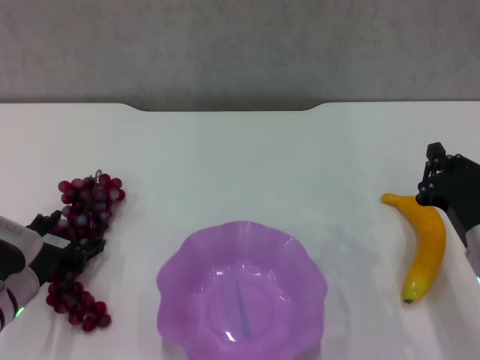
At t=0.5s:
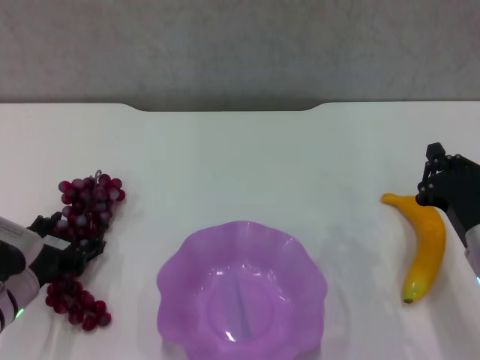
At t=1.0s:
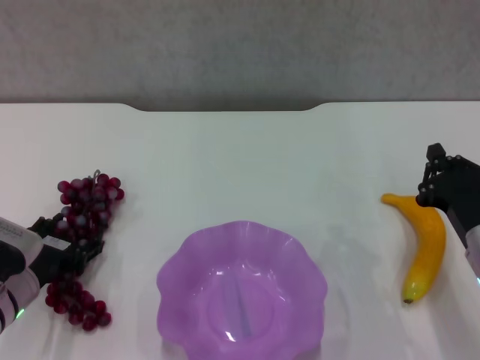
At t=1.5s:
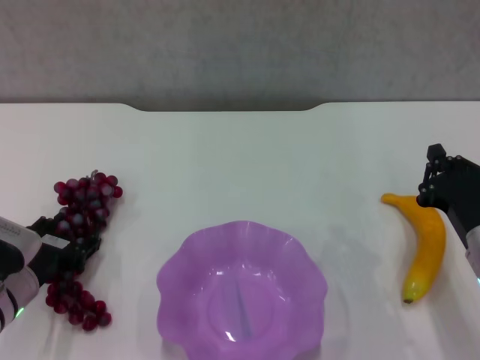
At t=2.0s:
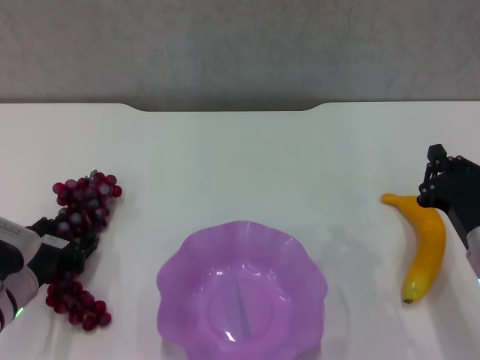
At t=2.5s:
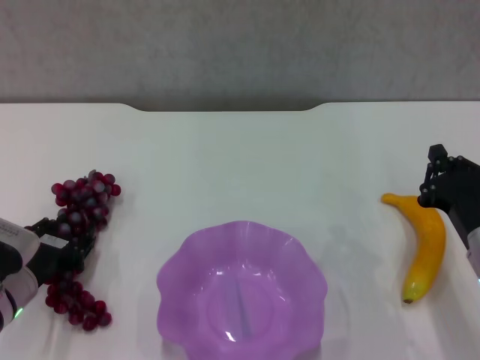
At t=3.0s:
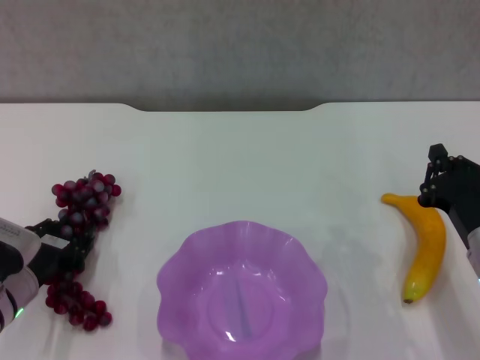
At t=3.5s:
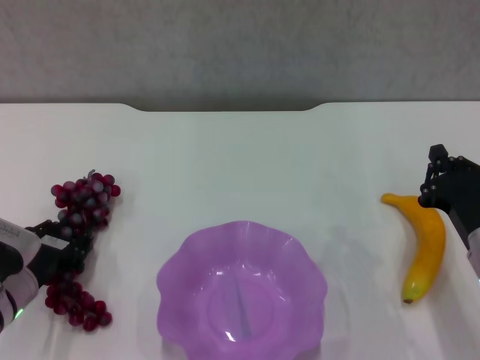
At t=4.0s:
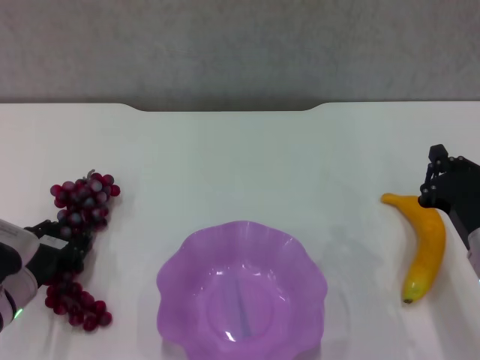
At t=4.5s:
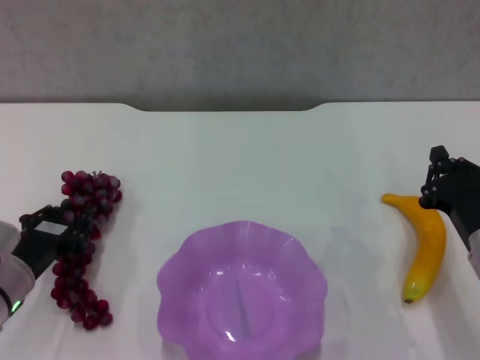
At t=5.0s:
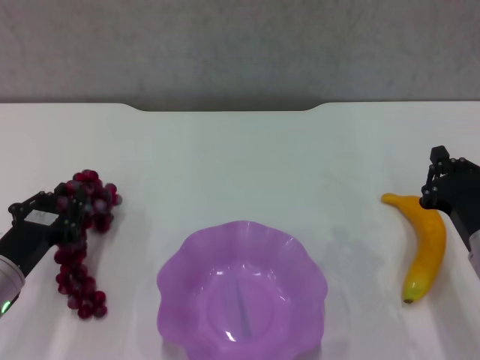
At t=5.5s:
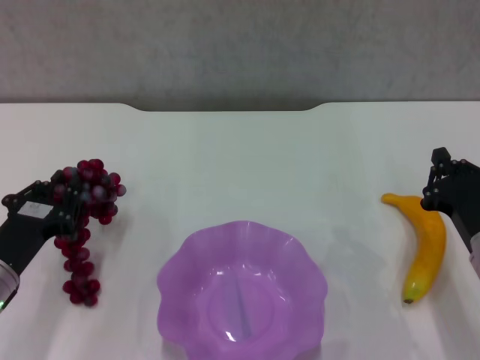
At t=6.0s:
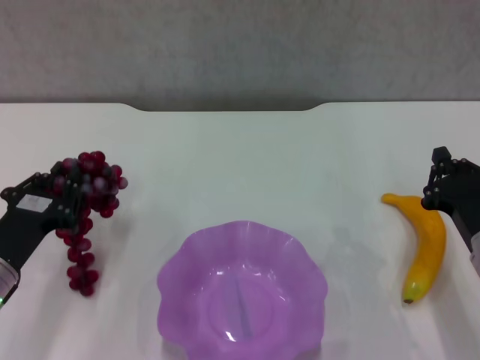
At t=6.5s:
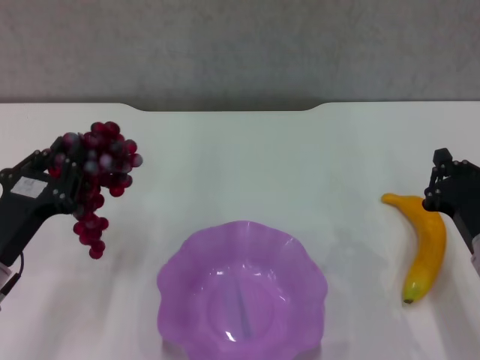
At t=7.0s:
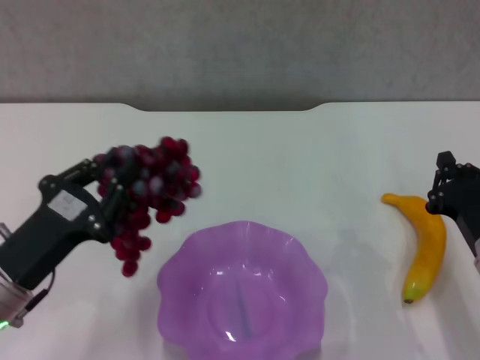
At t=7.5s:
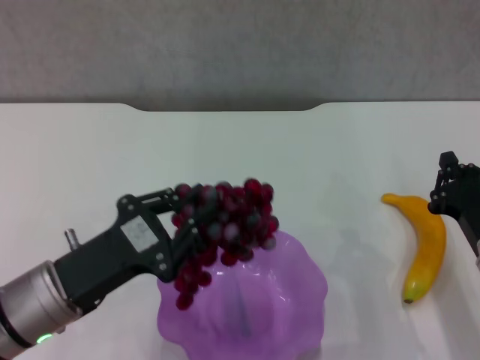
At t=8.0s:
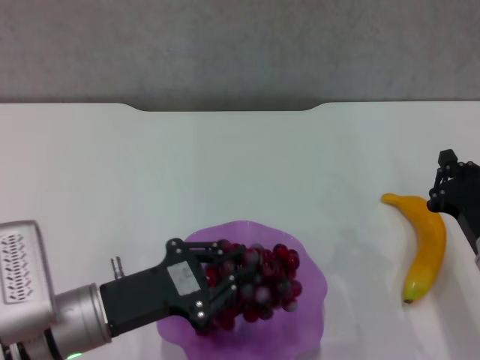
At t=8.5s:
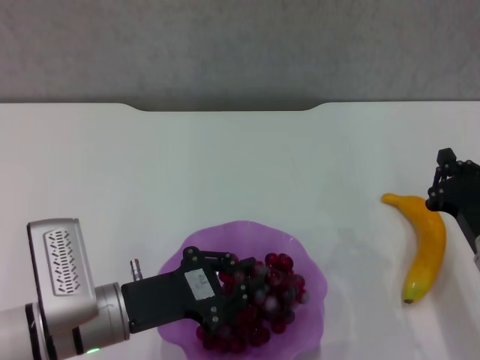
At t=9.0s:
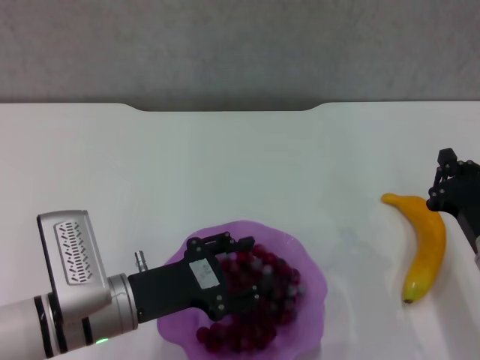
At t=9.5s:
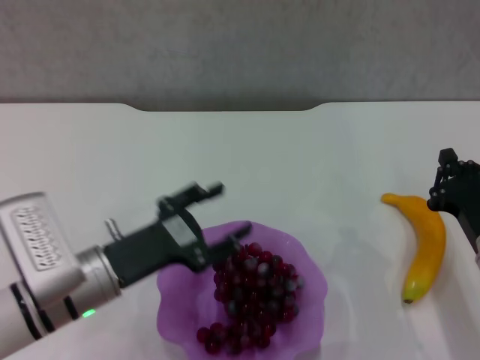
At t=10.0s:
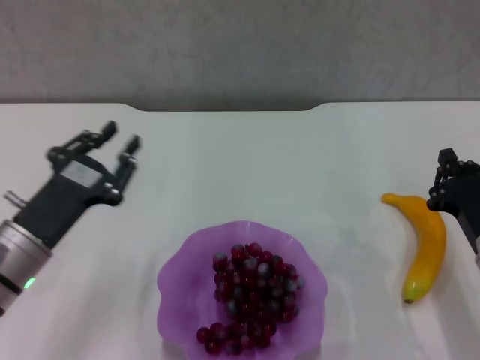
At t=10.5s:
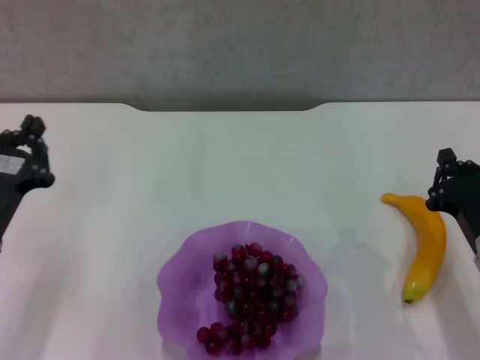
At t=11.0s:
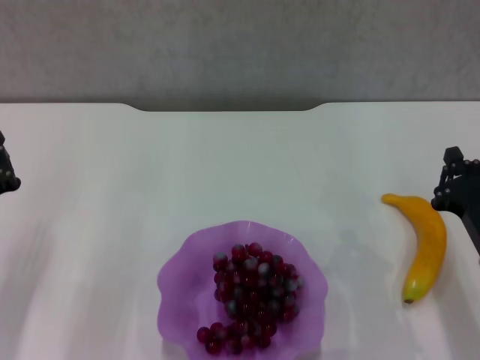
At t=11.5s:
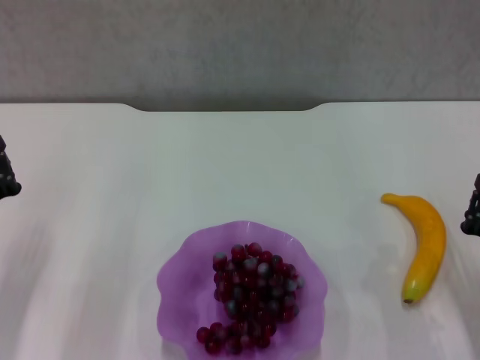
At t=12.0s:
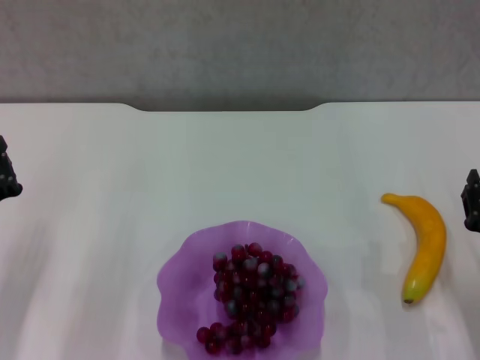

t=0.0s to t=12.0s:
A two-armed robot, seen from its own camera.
Step, t=0.0s to t=4.0s: Grasp the grape with left gripper.
Step, t=4.5s to t=9.0s: Place the grape in the purple plate with left gripper.
t=0.0s to t=4.0s: Both grippers stay about where they are.
t=6.0s to t=8.0s: The left gripper travels to the right by some 10 cm.
t=8.0s to t=10.0s: The left gripper changes place by roughly 5 cm.
t=10.0s to t=12.0s: The left gripper shifts some 5 cm to the left, and closes. Meanwhile the right gripper opens up.

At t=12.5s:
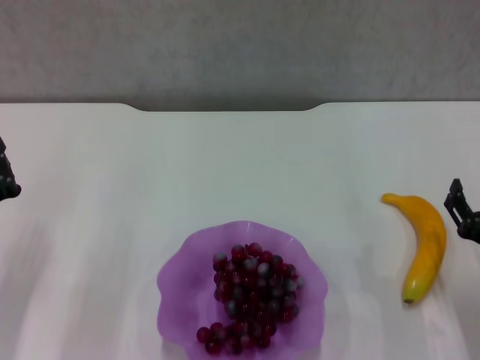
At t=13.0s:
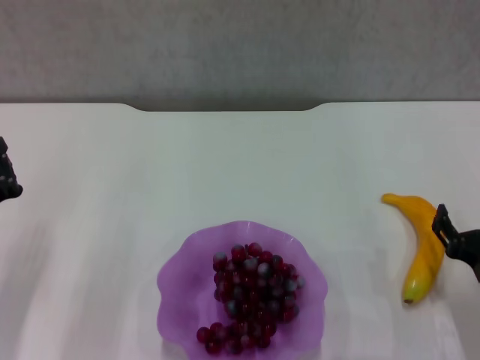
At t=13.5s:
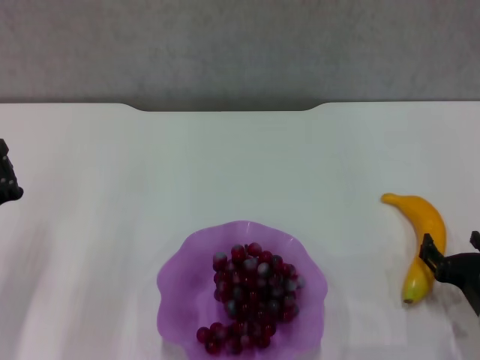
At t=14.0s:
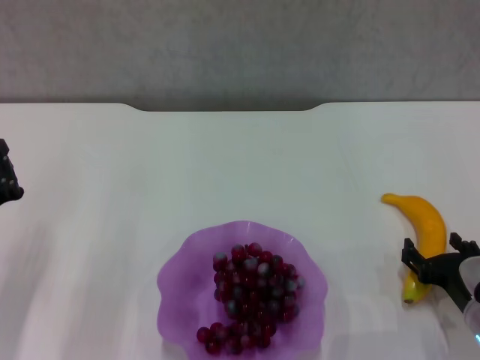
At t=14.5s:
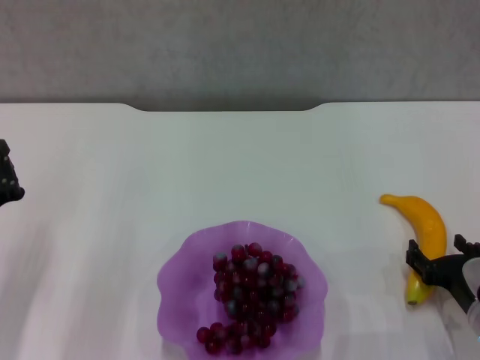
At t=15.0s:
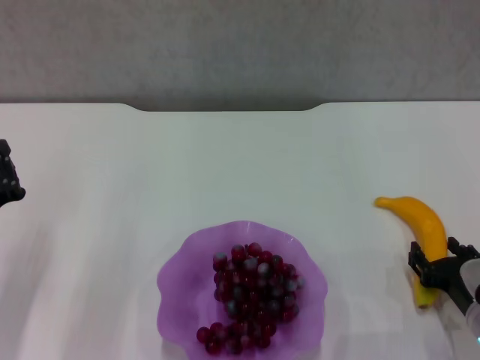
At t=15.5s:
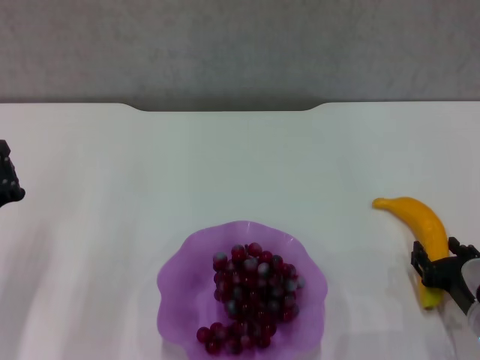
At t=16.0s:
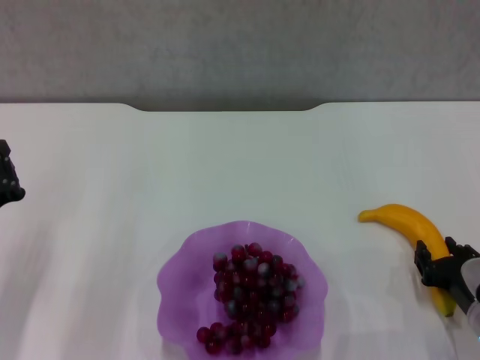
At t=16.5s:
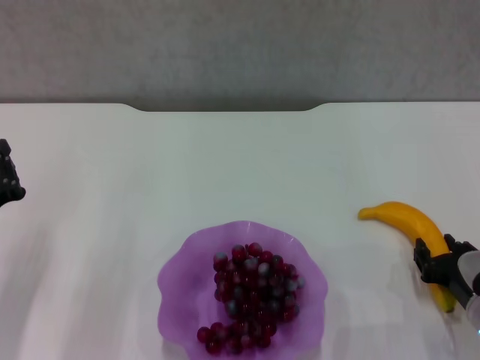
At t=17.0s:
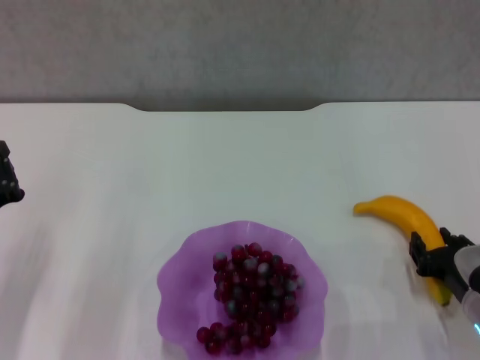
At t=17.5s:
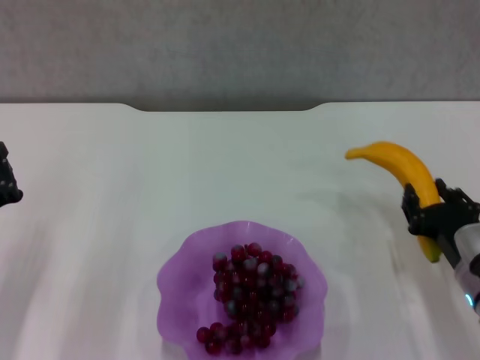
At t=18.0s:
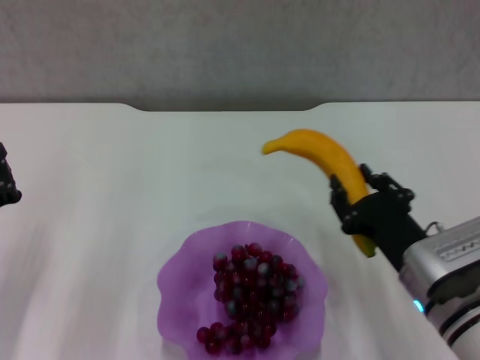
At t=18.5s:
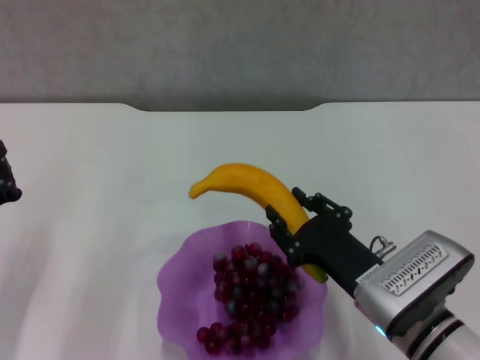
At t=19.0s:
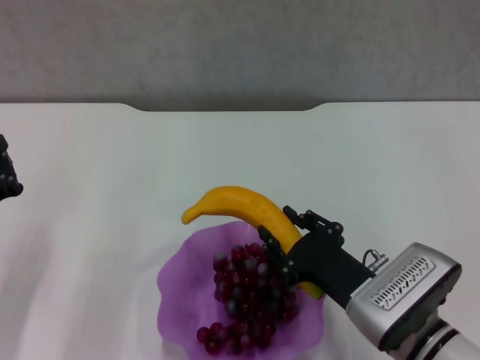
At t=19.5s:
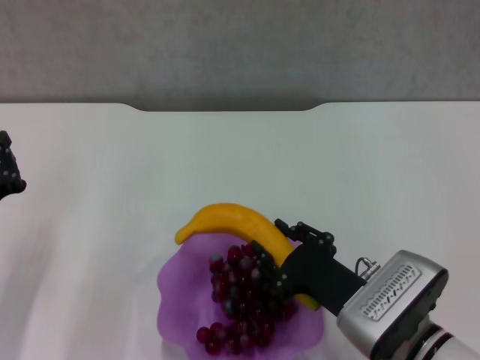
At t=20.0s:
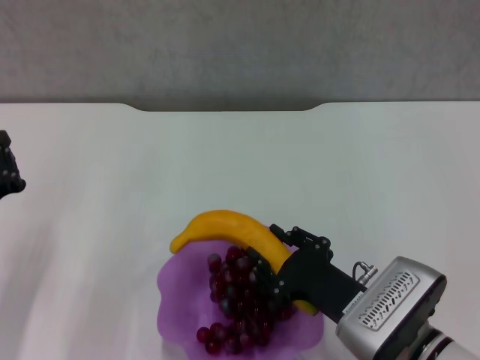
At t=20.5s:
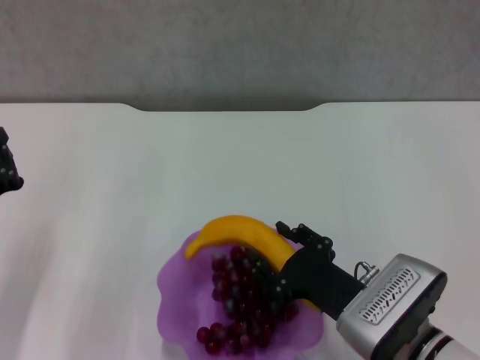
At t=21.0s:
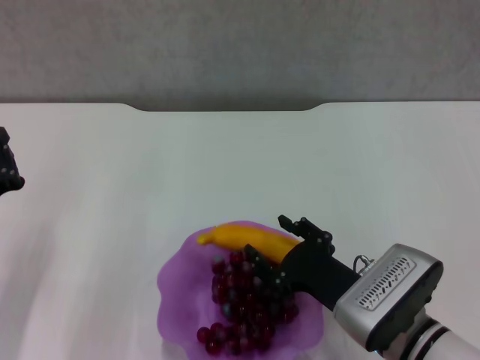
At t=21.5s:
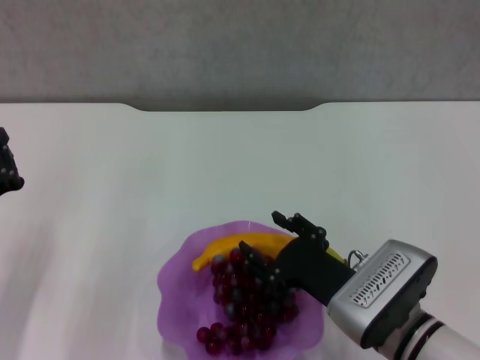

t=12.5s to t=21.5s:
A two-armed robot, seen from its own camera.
Step, t=12.5s to t=15.5s: Grasp the banana with right gripper.
t=14.5s to t=17.0s: The right gripper closes its fingers.
t=17.0s to t=19.5s: The right gripper shifts roughly 10 cm to the left.
t=19.5s to t=21.5s: Neither gripper changes place.

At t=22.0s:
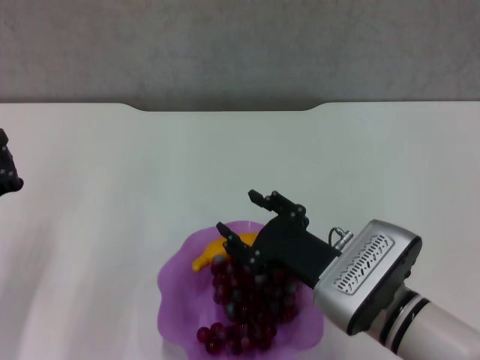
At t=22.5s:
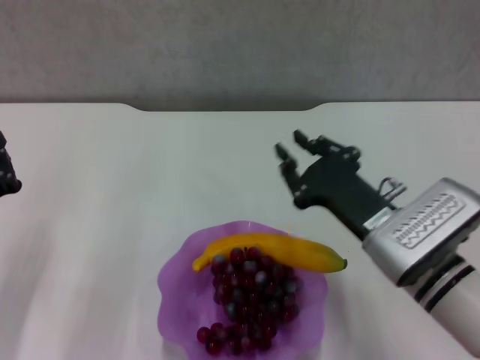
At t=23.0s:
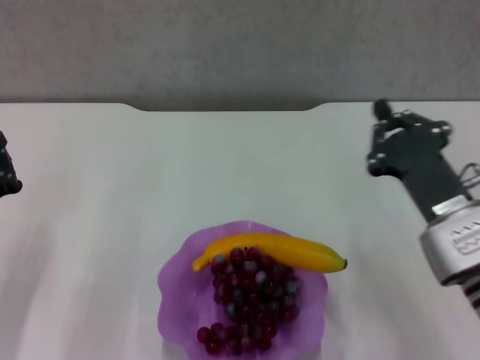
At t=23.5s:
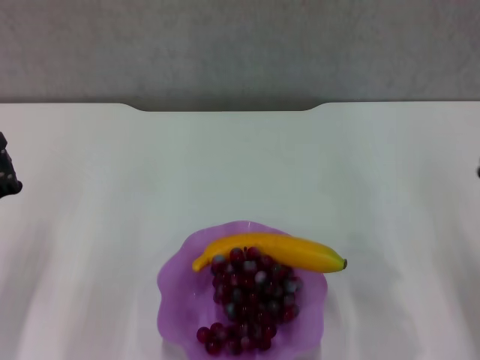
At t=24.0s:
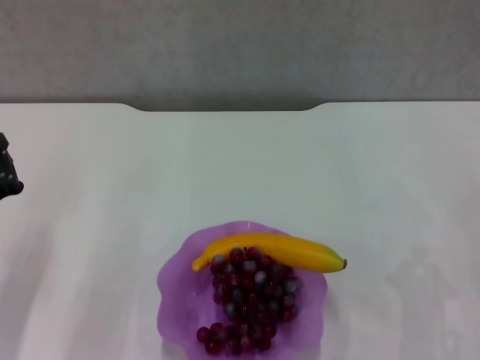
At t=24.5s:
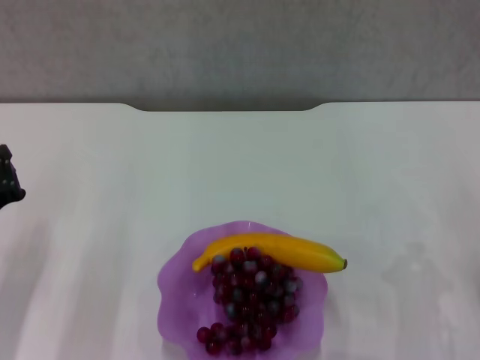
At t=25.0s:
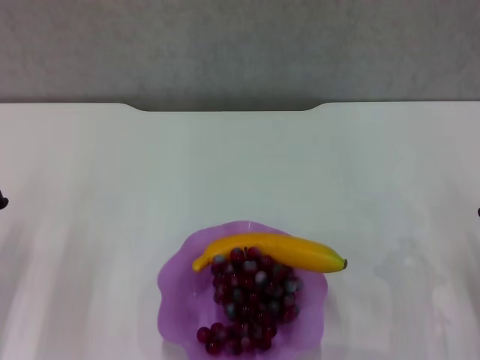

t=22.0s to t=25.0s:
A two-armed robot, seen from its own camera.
t=22.0s to t=23.5s: The right gripper heads to the right, covering about 15 cm, and closes up.
t=23.5s to t=25.0s: The grippers move only a little.

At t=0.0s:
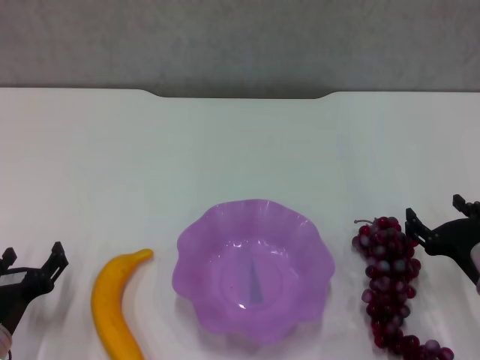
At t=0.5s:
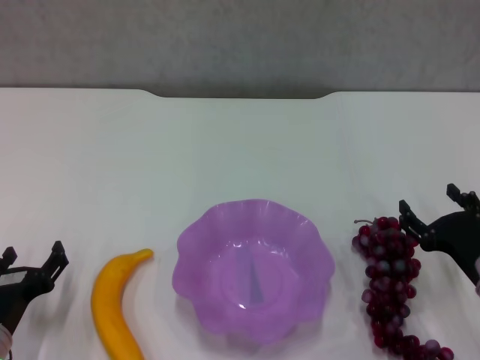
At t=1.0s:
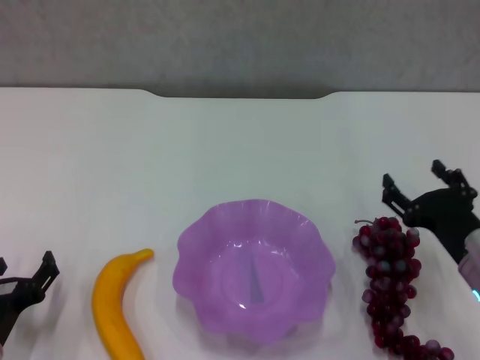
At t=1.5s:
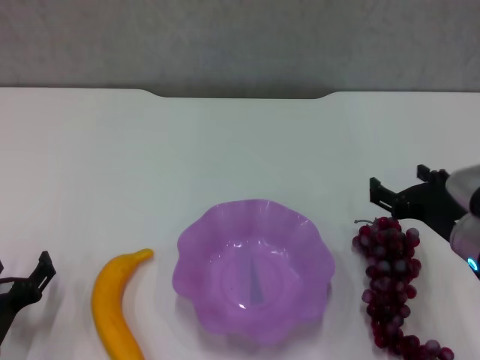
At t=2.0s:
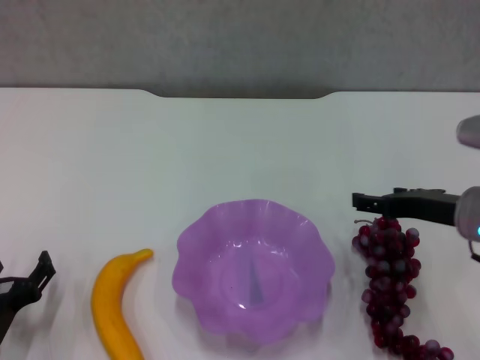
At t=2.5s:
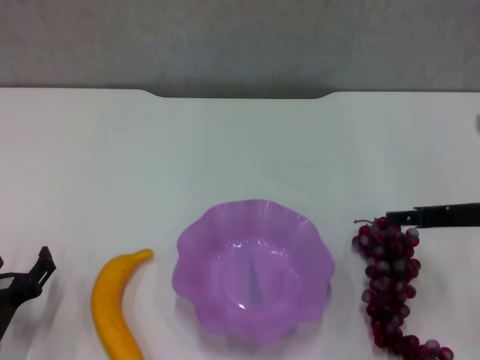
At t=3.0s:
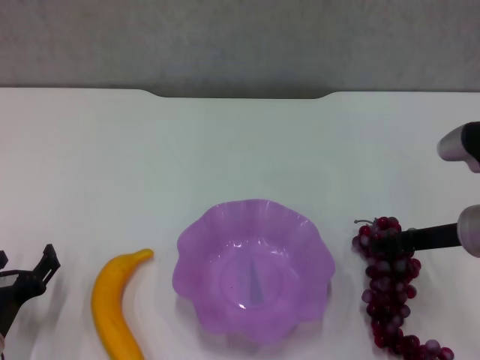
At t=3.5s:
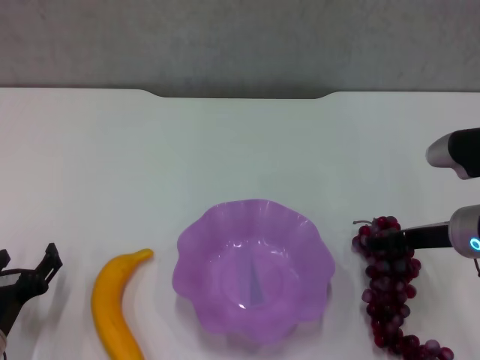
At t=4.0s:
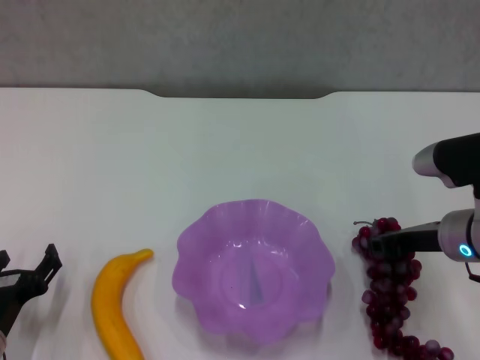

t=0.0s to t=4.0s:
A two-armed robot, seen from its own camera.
t=0.0s to t=2.0s: The right gripper is displaced upward by approximately 10 cm.
t=2.0s to t=4.0s: The grippers move only a little.
